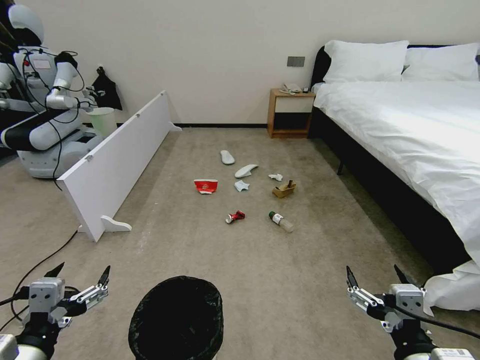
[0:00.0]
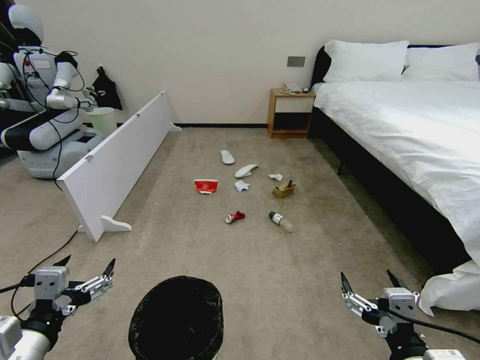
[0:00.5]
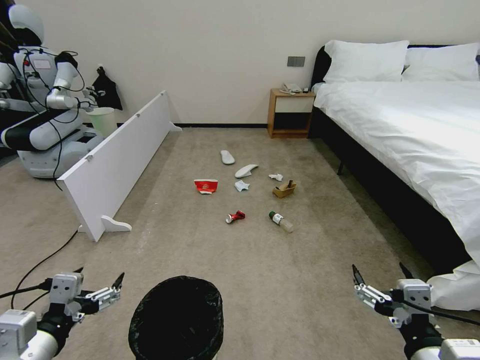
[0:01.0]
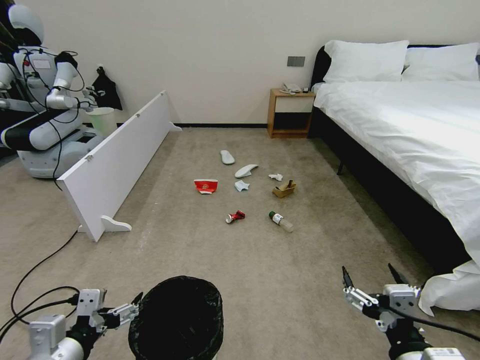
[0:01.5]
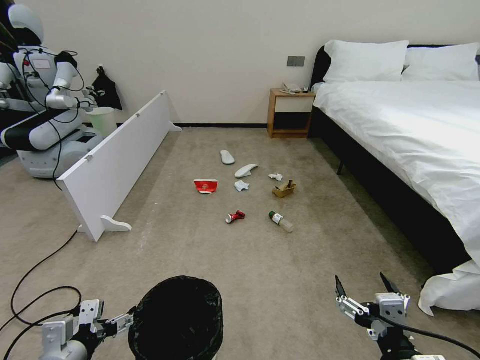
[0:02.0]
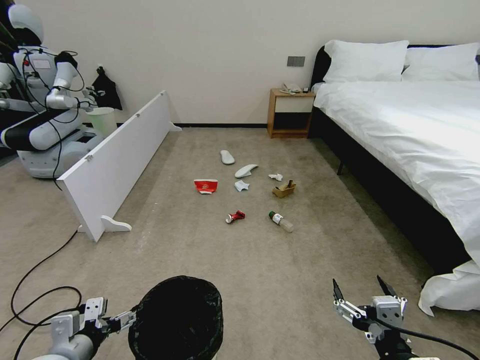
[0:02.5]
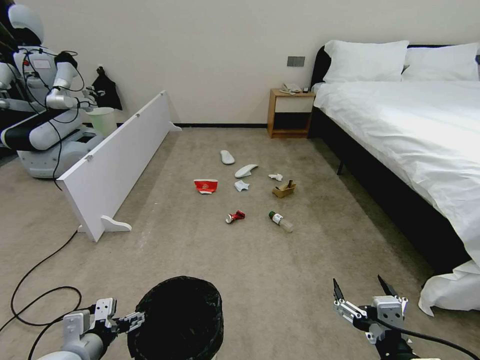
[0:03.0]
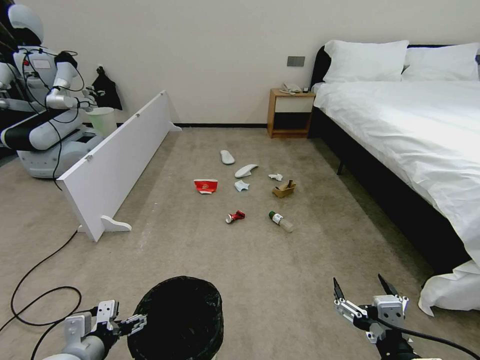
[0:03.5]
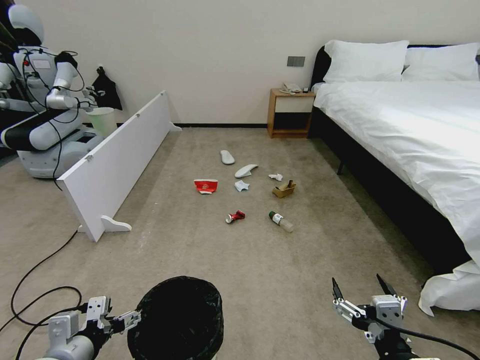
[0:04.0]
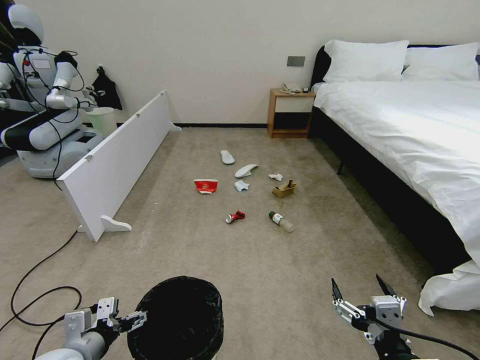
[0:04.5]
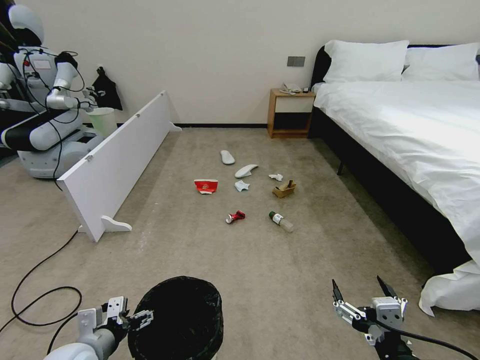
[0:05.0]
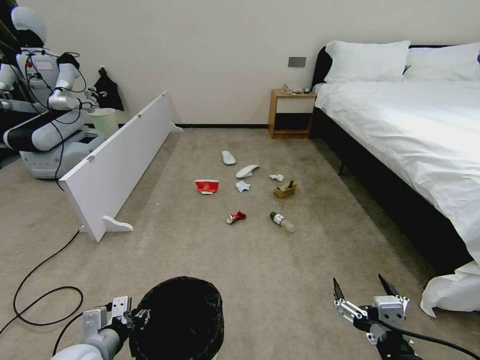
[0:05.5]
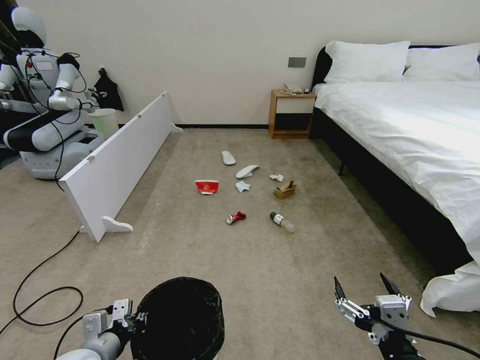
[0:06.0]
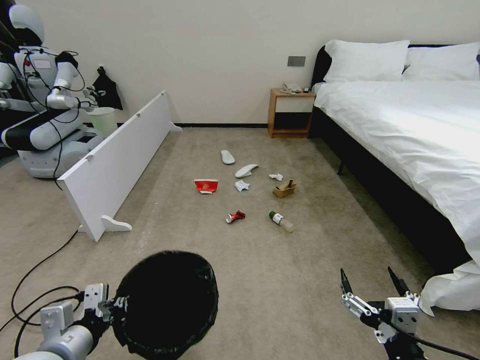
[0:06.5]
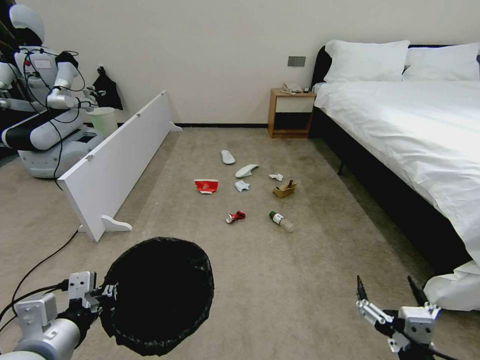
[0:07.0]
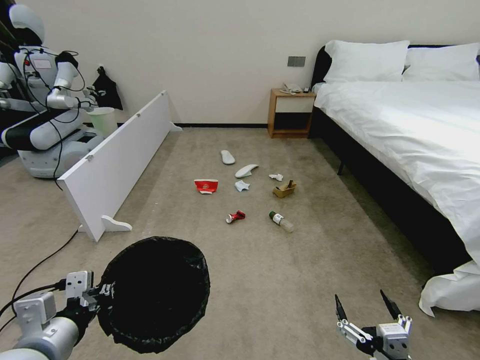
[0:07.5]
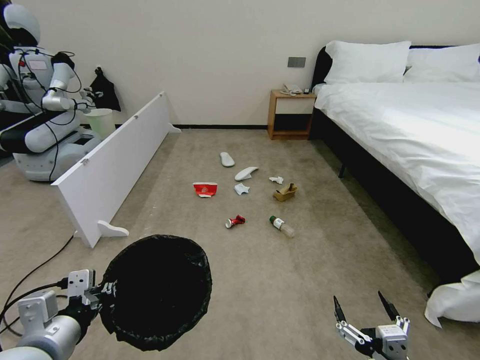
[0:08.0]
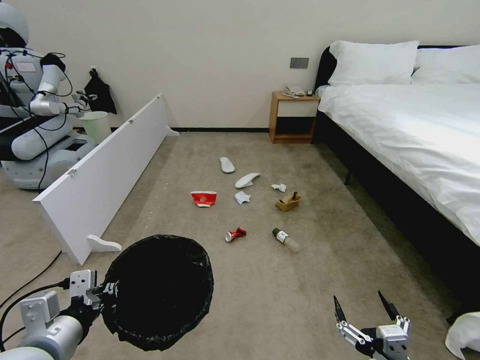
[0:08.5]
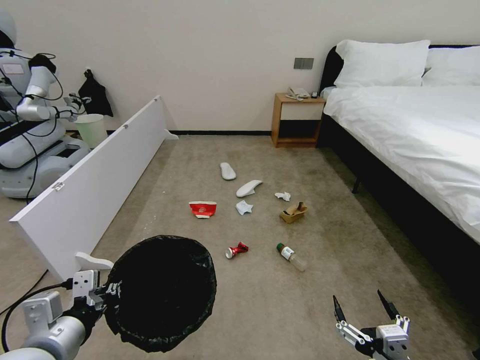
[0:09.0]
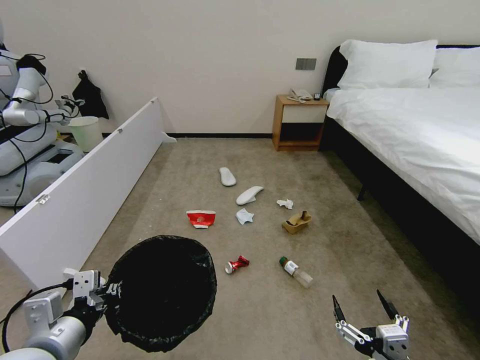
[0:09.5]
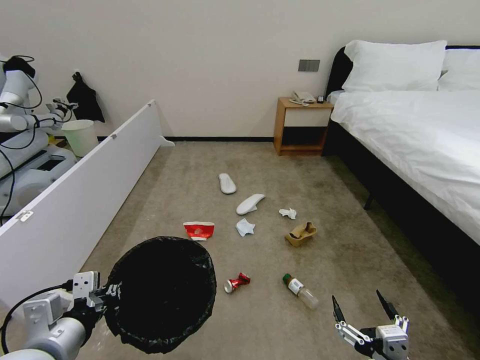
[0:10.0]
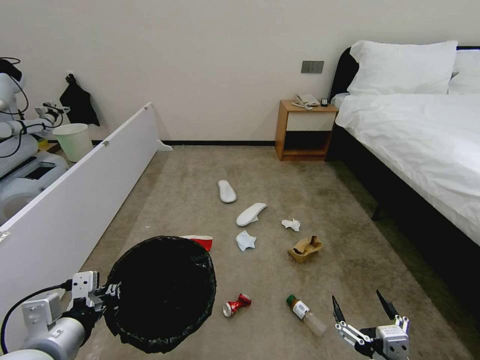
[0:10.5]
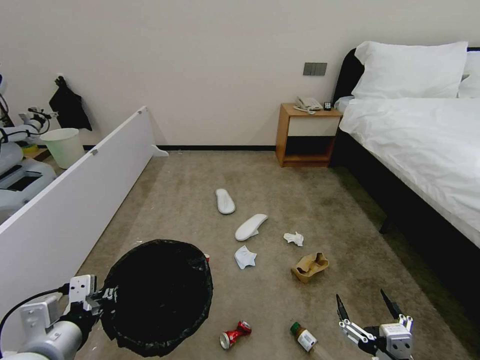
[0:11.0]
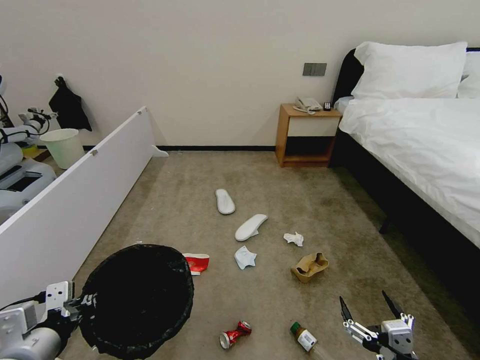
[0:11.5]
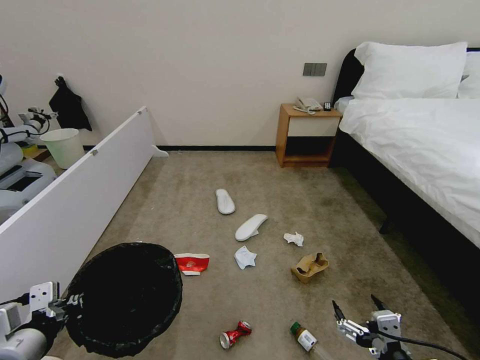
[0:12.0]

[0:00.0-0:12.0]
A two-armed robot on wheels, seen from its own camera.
Task of the whole recording: Pick up the trash bin, then pick up the garbage from the floor and place it into the trash bin.
2.0 to 4.0 s: The grippers make only small movements.
4.0 to 6.0 s: The left gripper is displaced downward by some 5 cm, and closes.
6.0 to 8.0 s: The right gripper heads downward, covering roughly 5 cm. The left gripper is displaced upward by roughly 15 cm.
10.0 to 12.0 s: The left gripper shifts roughly 5 cm to the left.

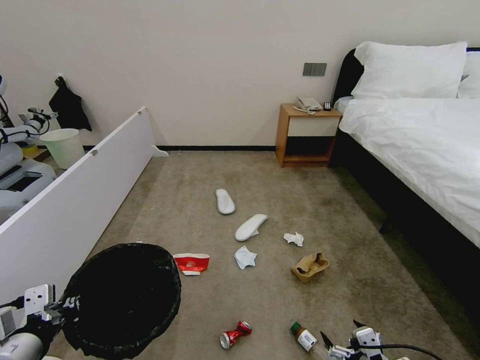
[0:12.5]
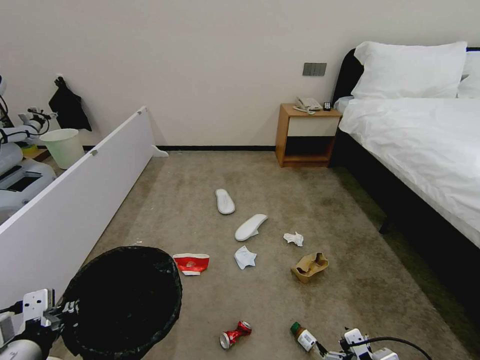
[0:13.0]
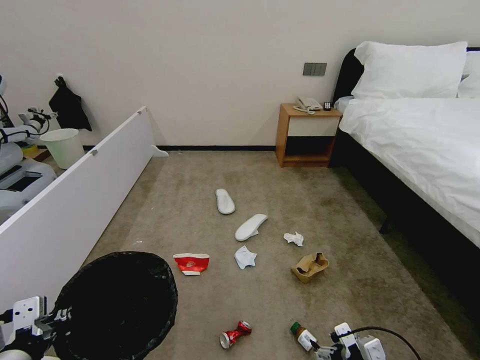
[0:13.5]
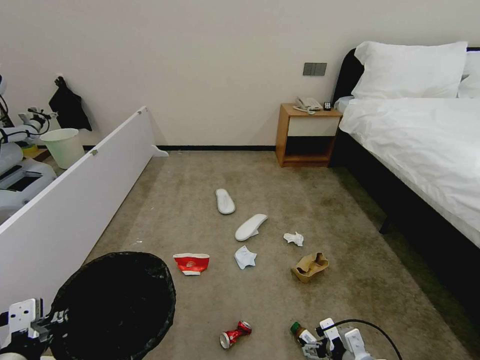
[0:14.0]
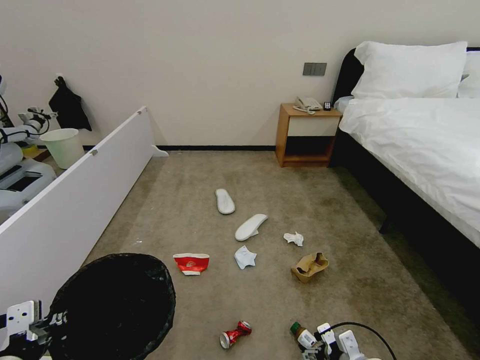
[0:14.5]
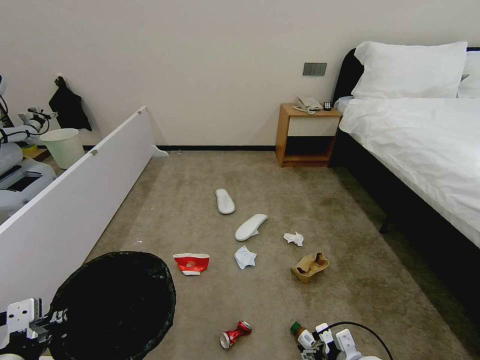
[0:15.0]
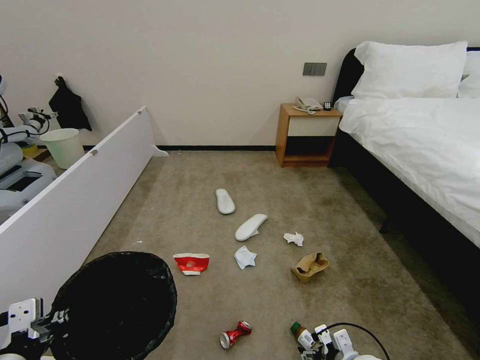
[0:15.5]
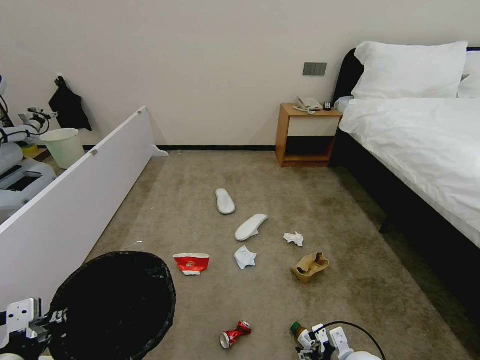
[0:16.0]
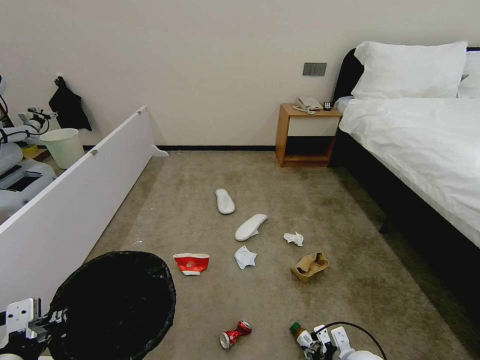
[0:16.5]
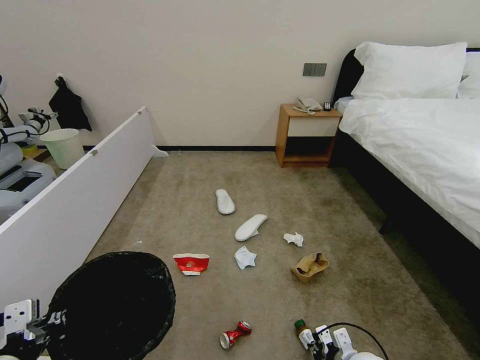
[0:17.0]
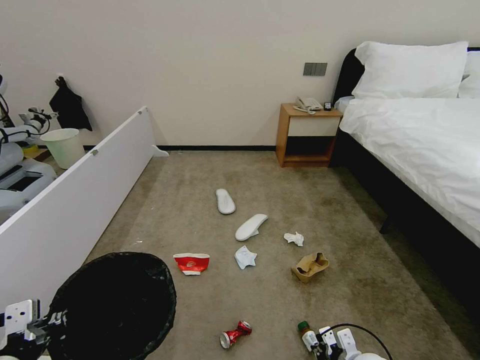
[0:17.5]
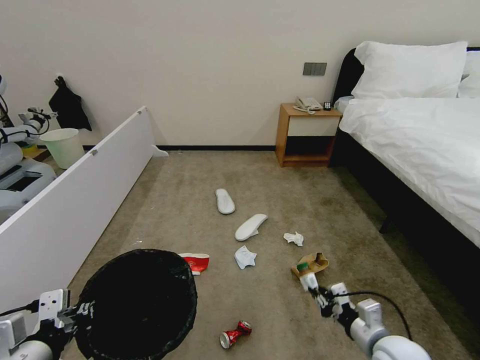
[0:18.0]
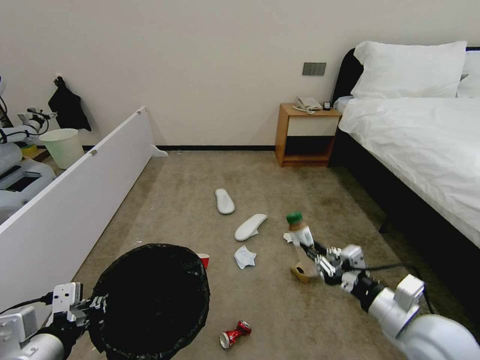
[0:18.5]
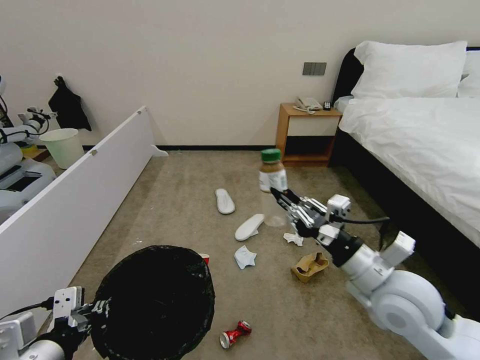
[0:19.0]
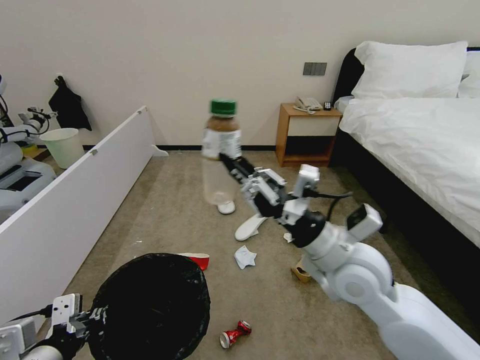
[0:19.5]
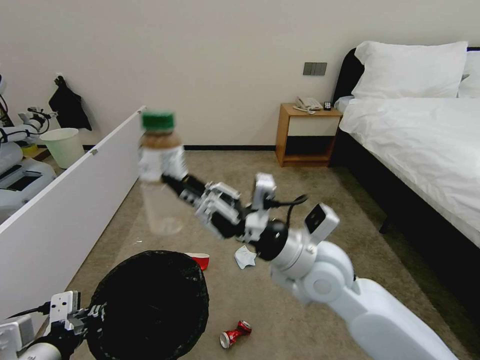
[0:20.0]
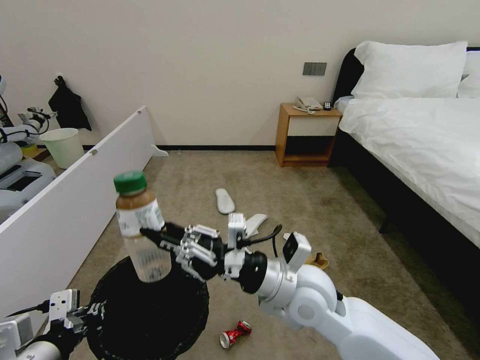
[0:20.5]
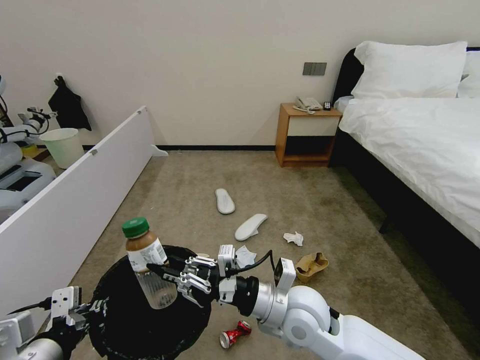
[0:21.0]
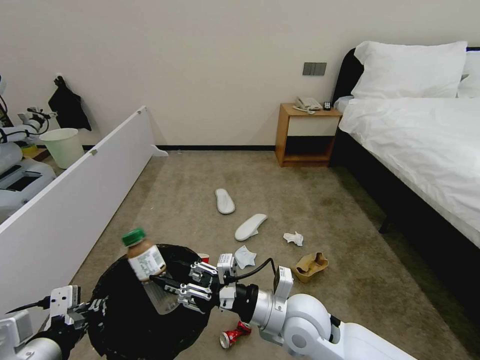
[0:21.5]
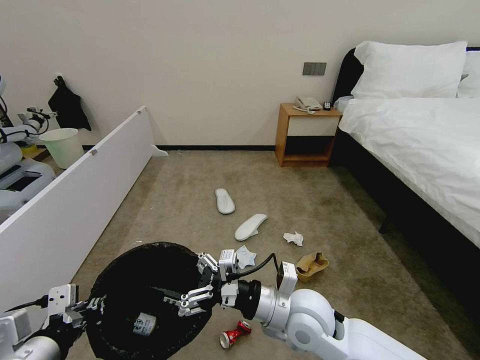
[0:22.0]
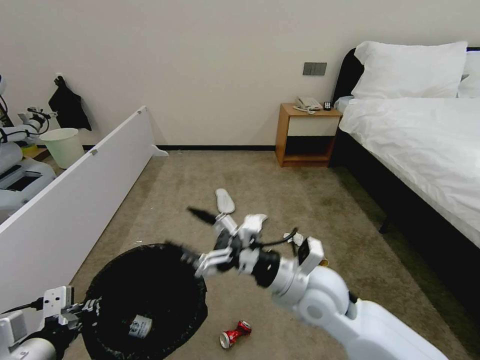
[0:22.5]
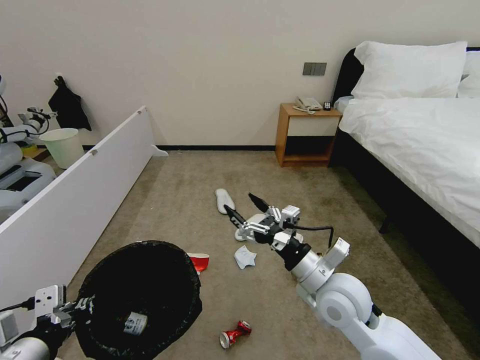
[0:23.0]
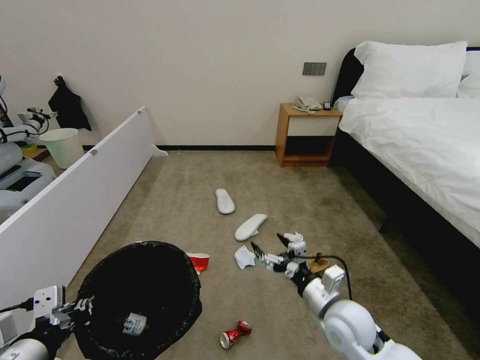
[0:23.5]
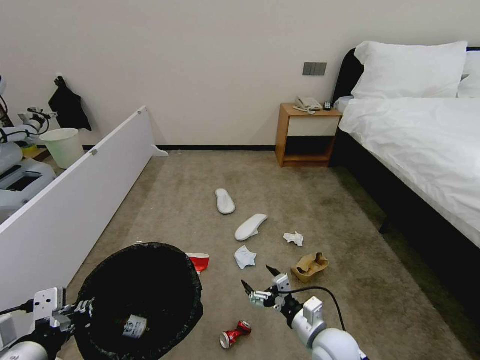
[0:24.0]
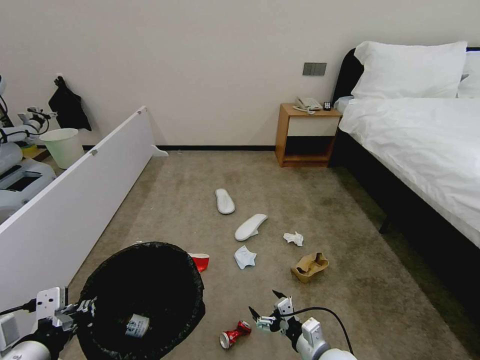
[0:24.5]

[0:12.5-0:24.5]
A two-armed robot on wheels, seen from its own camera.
Task of the whole recording: Pick up the trash bin, then pick up the garbage from the floor and place it into the trash bin.
12.5 to 14.5 s: The right gripper is displaced downward and forward by approximately 15 cm.
14.5 to 16.5 s: The right gripper closes up.
16.5 to 18.5 s: The right gripper heads upward, covering roughly 25 cm, and closes its fingers.
18.5 to 20.5 s: The right gripper goes roughly 20 cm to the left.
20.5 to 22.5 s: The right gripper opens.
22.5 to 24.5 s: The right gripper is displaced downward by roughly 25 cm.

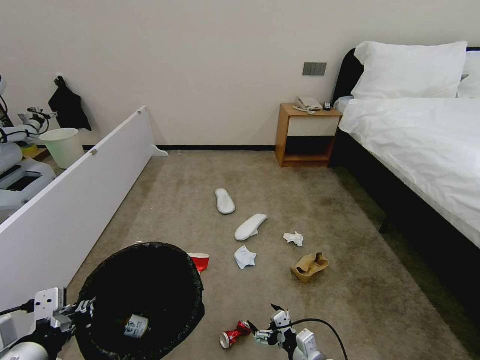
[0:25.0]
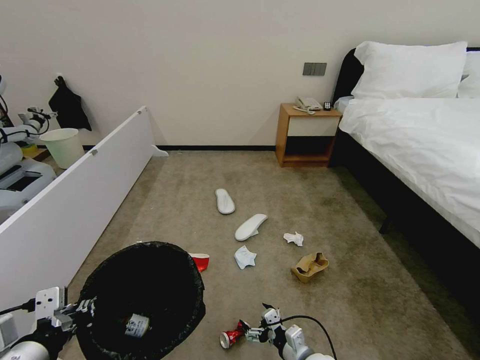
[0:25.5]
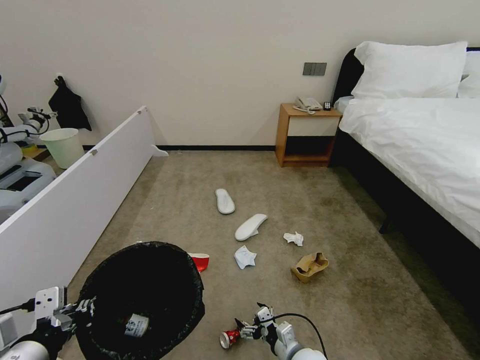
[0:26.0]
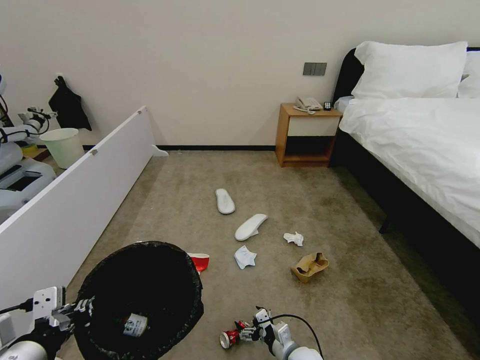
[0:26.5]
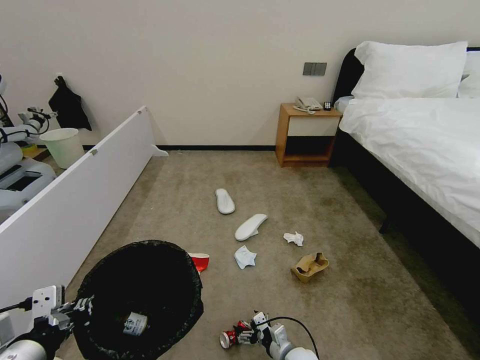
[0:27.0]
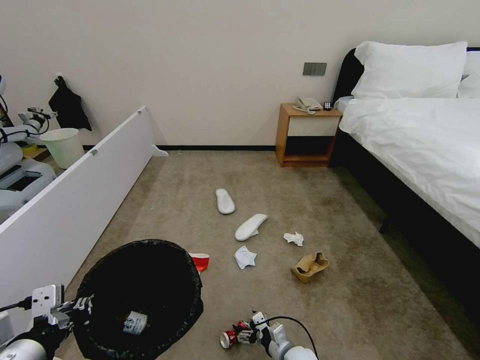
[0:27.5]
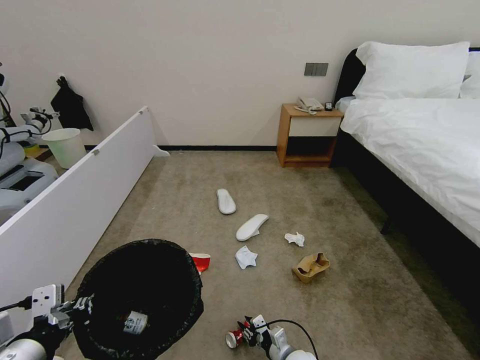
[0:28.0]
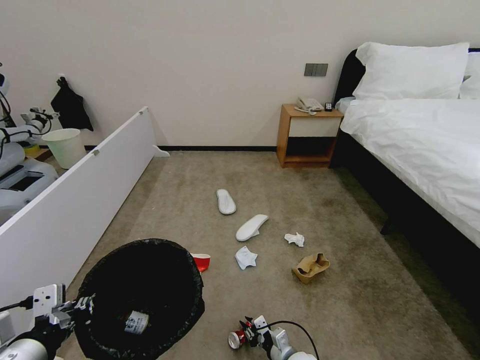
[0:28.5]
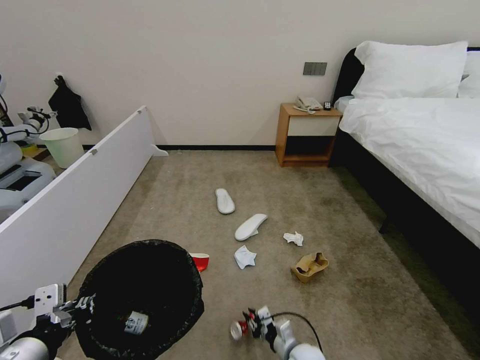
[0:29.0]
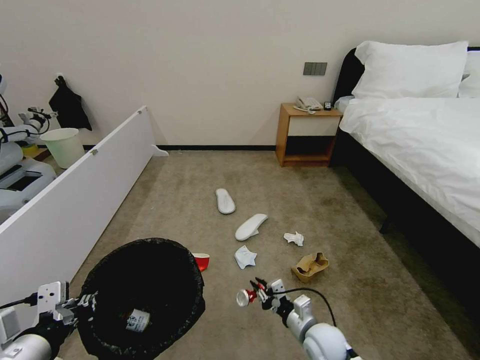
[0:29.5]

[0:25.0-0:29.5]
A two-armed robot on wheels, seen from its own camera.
Task of the whole recording: Pick up the trash bin, then pick up the garbage from the floor and place it into the trash bin.
25.0 to 27.0 s: The right gripper is displaced downward and forward by approximately 10 cm.
27.0 to 29.5 s: The right gripper shifts about 10 cm upward, and closes.
